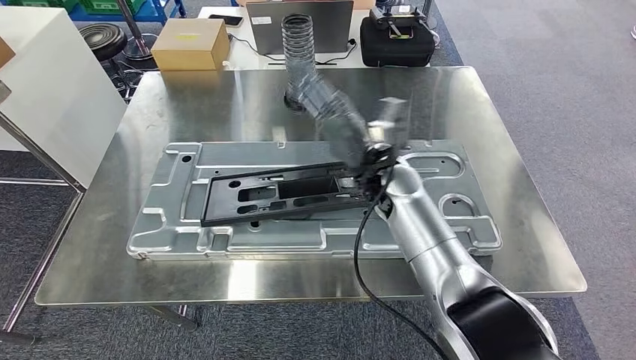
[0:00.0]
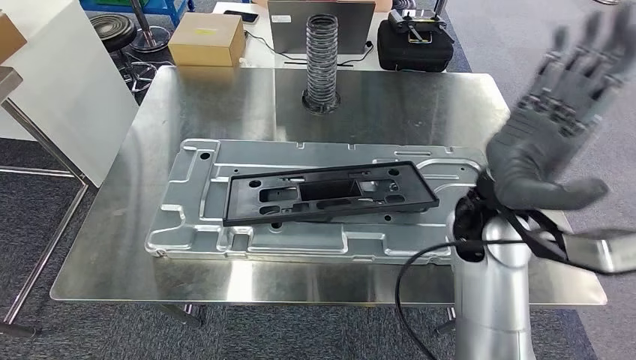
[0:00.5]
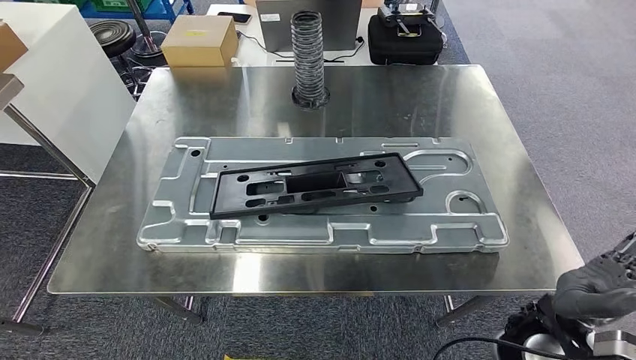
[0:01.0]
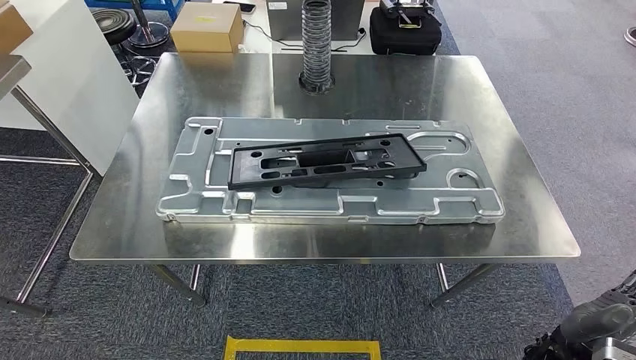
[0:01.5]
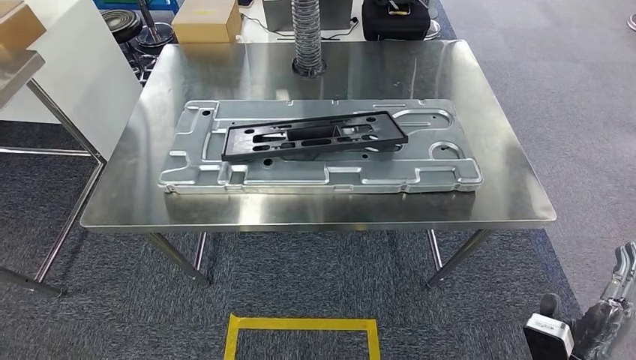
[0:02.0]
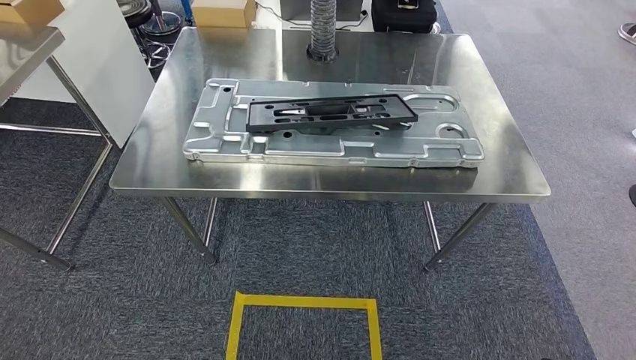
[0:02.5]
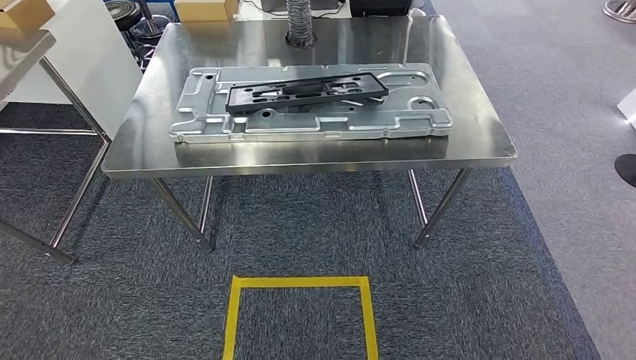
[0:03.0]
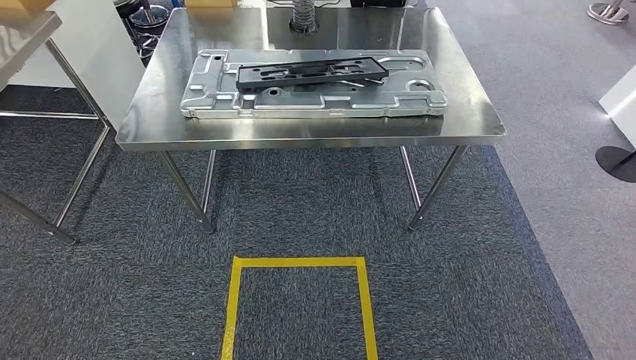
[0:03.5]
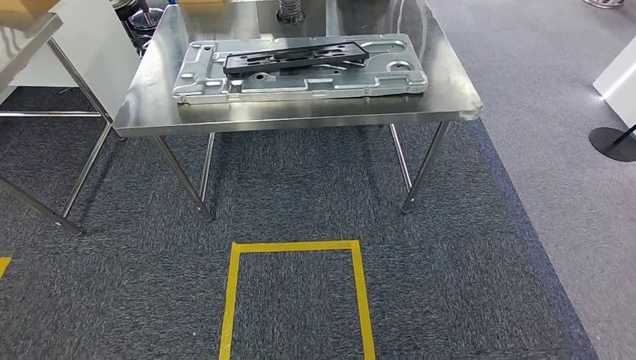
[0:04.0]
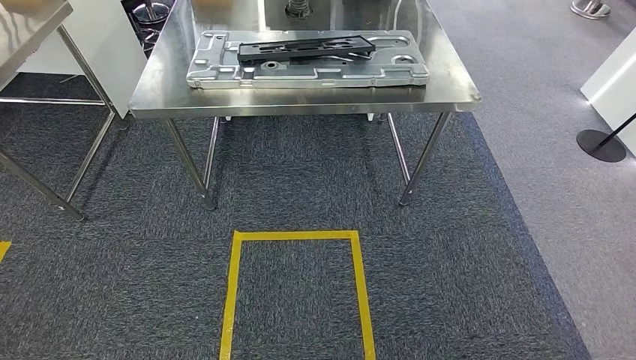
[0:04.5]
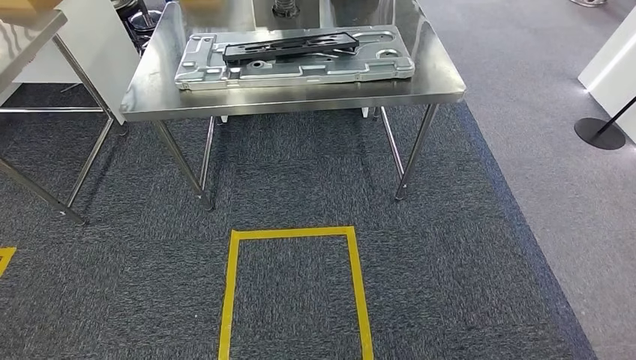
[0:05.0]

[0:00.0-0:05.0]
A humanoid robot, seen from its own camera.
Step, 0:02.0 to 0:05.0: Return to the initial position at the workbench.

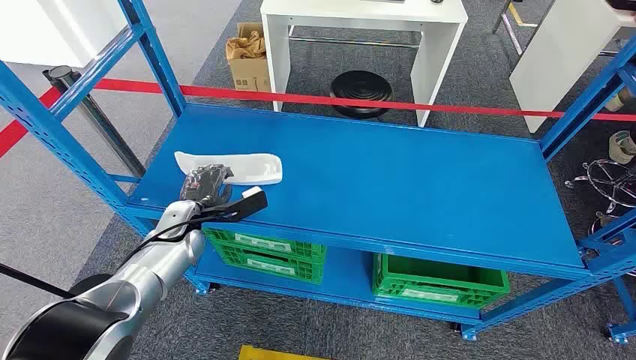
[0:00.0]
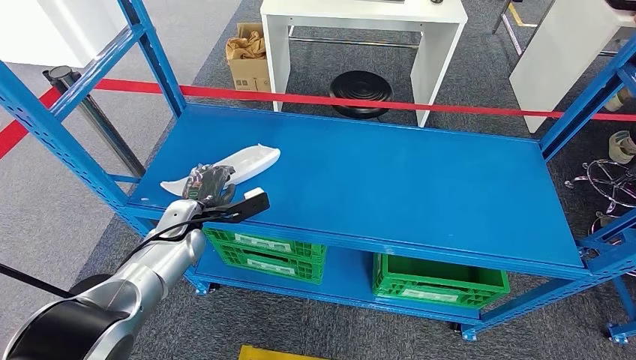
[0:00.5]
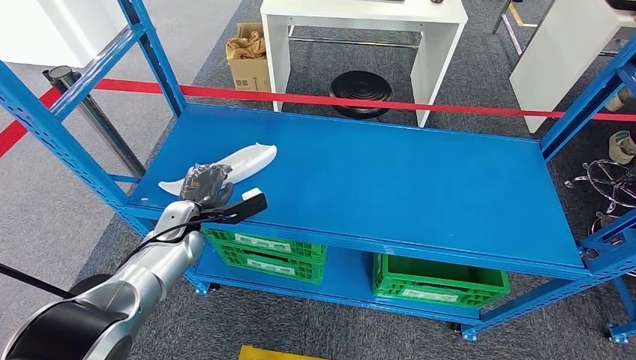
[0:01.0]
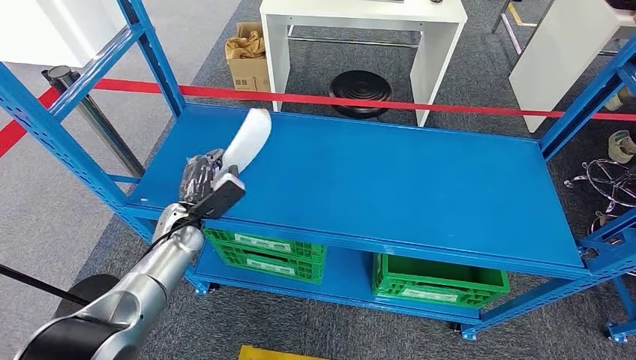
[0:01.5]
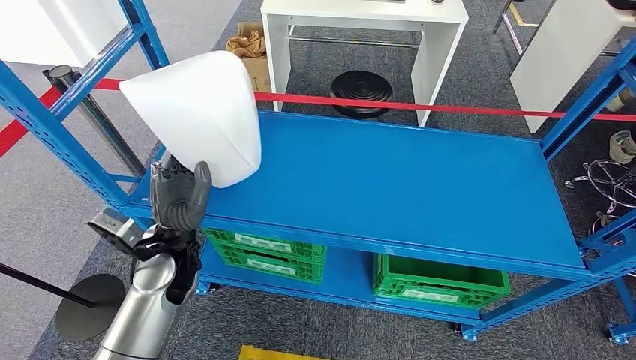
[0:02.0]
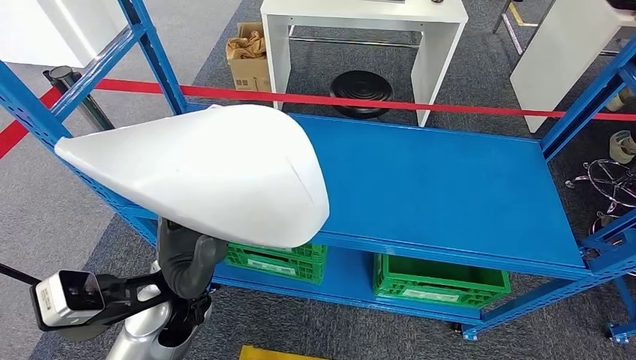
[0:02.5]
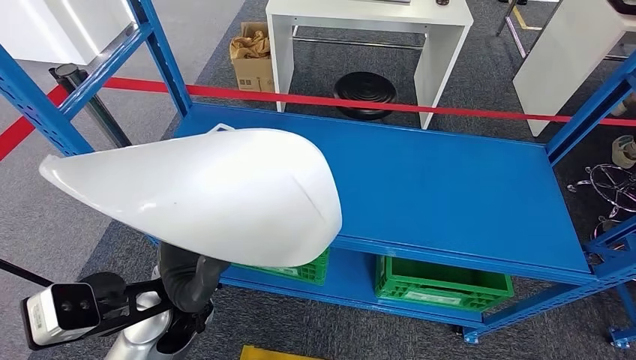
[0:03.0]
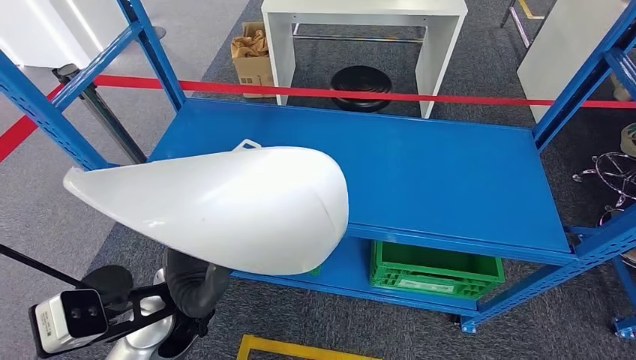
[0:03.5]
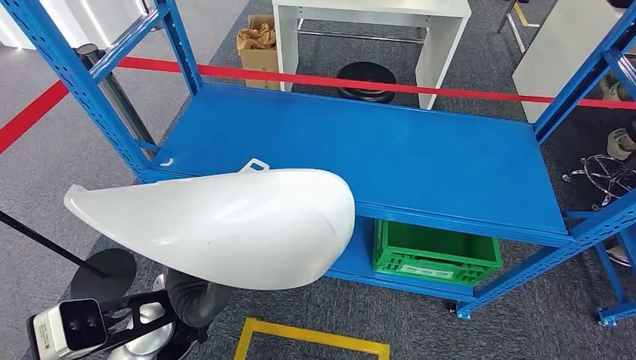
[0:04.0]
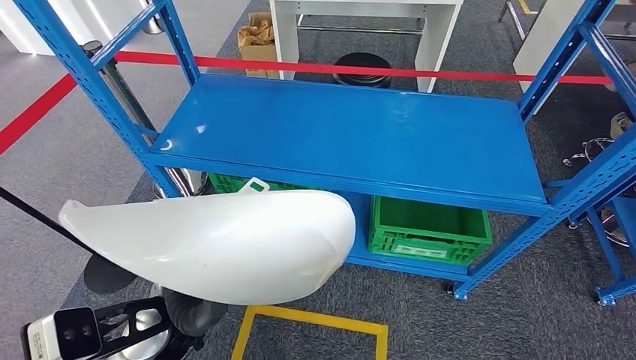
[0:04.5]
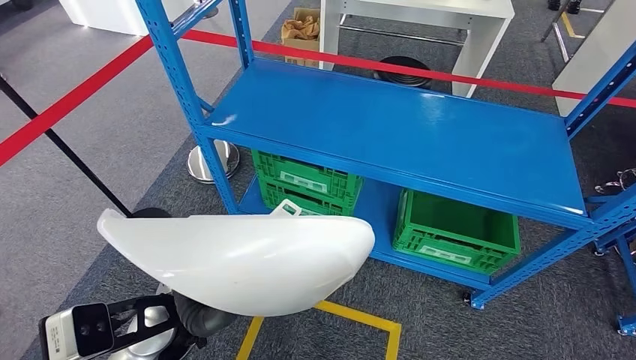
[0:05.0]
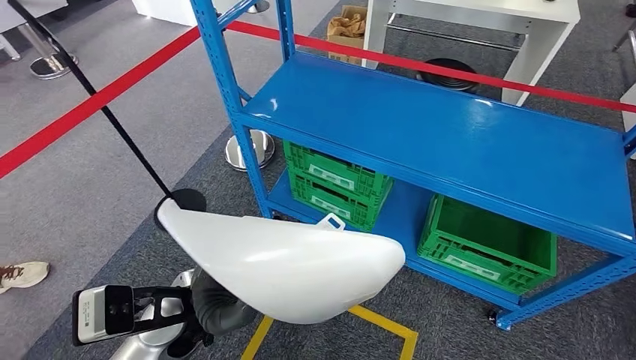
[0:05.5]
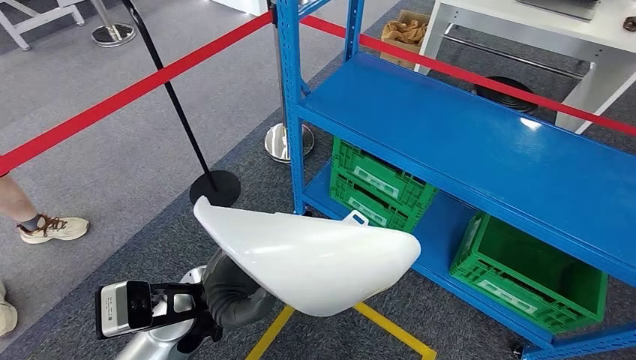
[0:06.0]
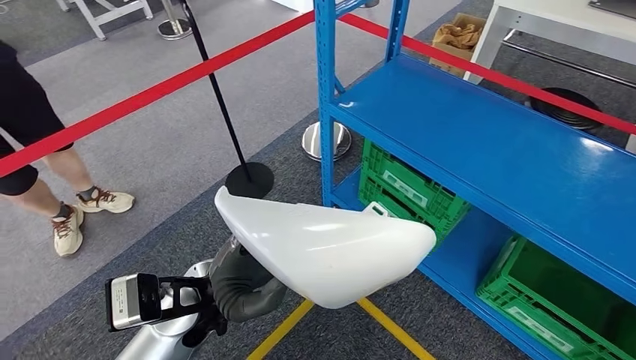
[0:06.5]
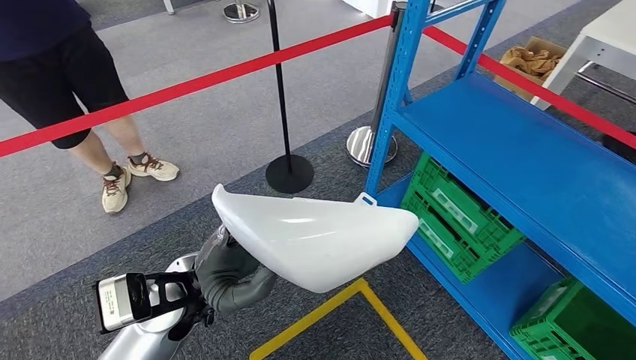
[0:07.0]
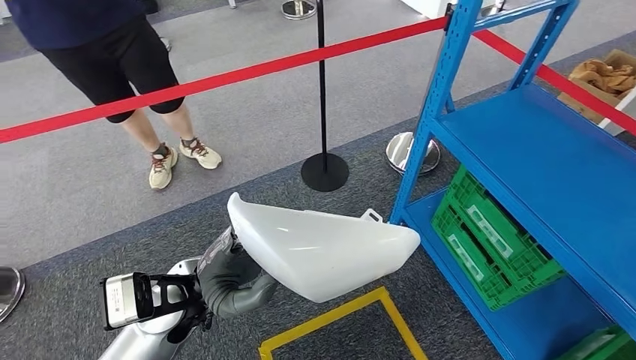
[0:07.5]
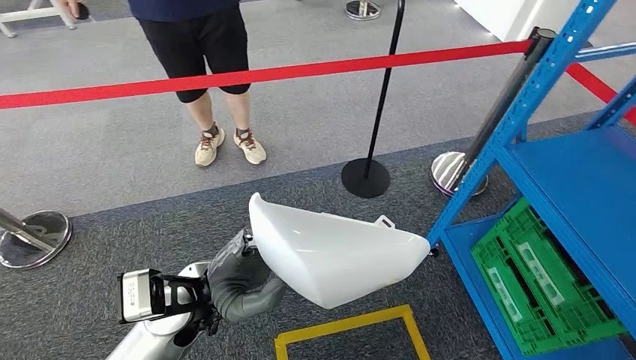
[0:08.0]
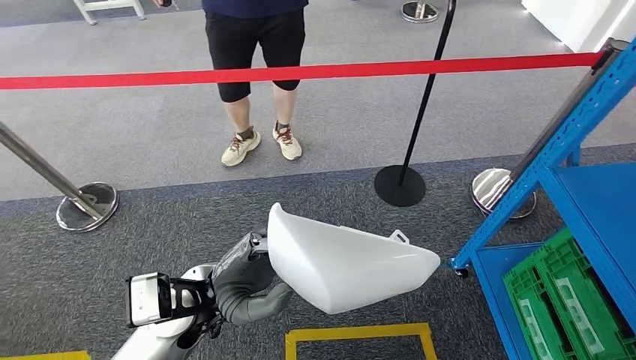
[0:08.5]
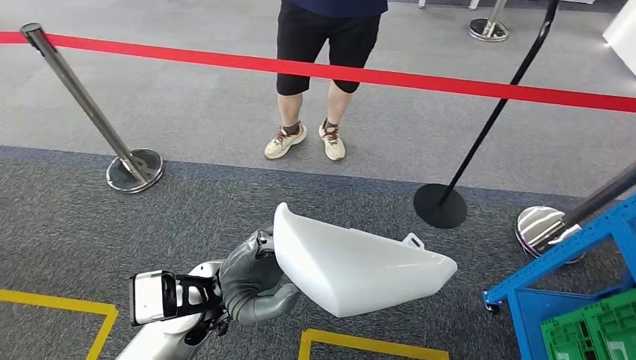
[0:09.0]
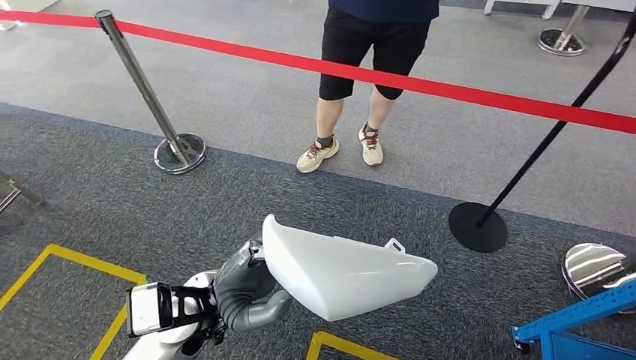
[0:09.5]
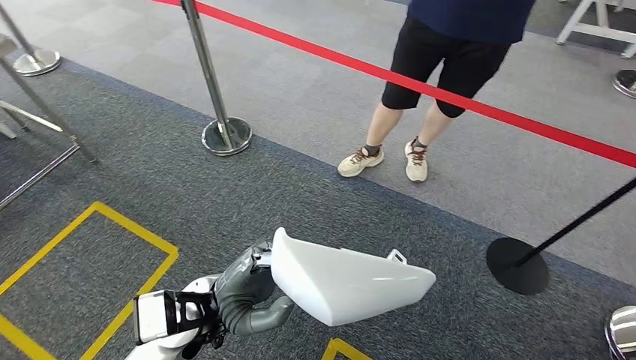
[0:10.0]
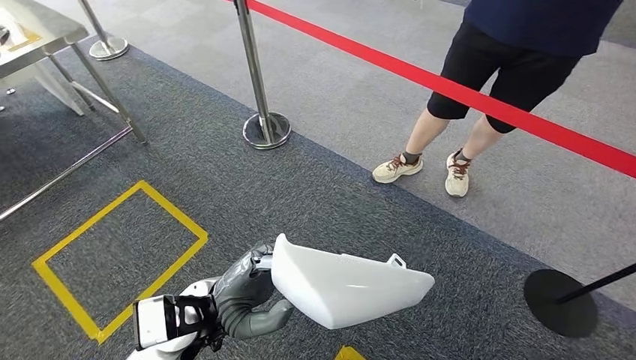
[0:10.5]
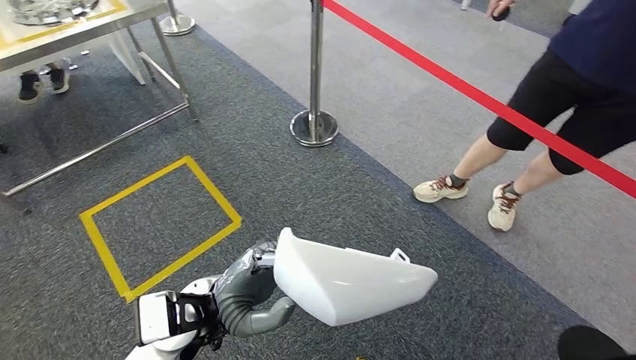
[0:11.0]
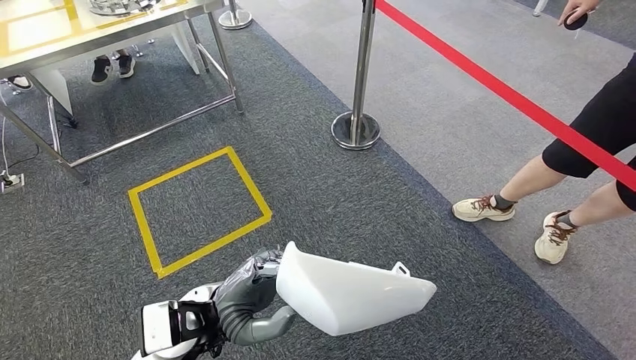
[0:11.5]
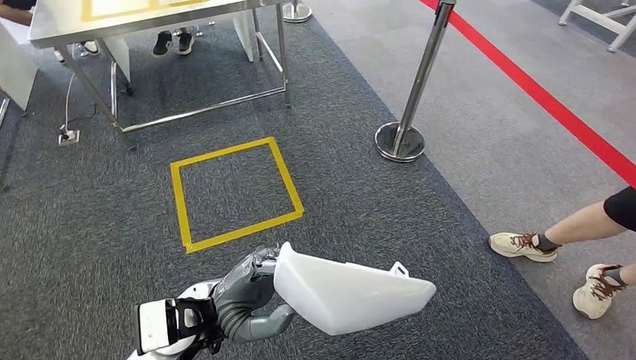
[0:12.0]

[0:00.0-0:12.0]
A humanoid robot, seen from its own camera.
Step, 0:00.0 to 0:03.0: Pick up the small component from the shelf.

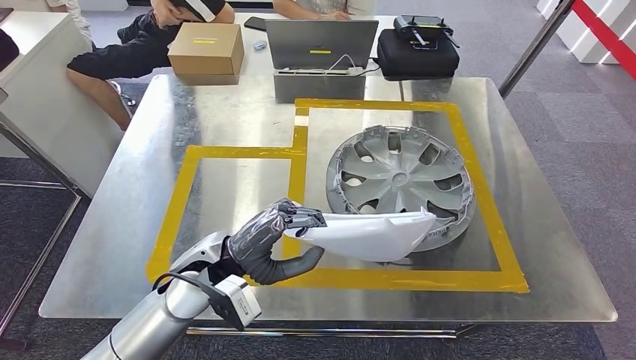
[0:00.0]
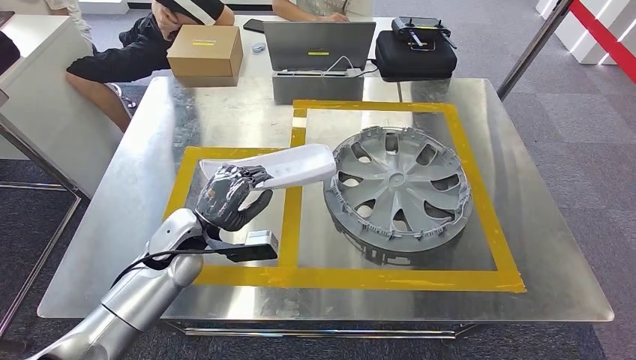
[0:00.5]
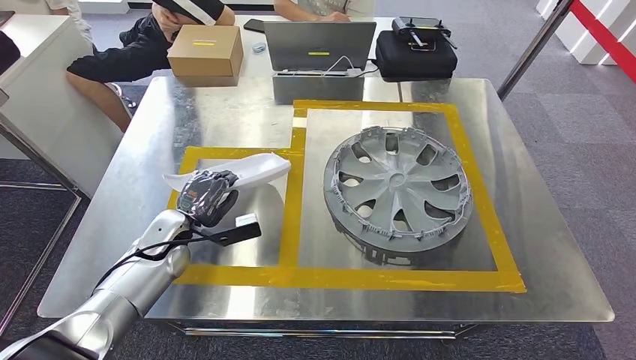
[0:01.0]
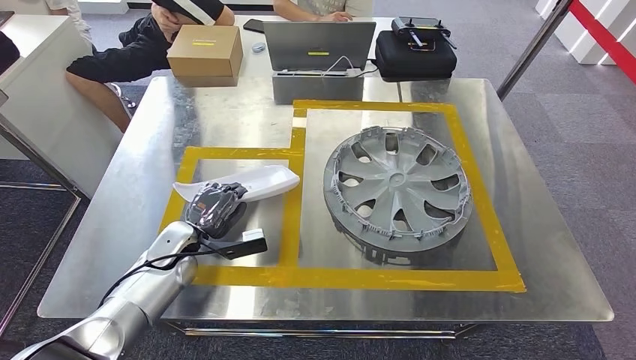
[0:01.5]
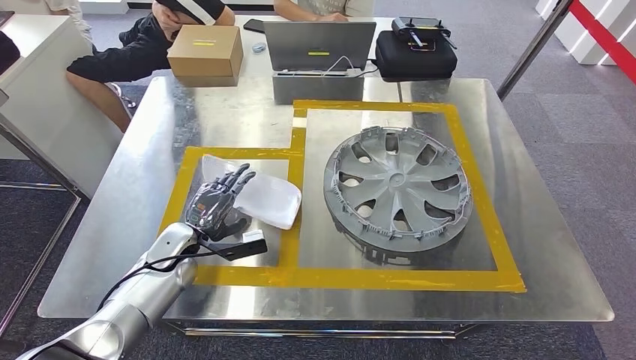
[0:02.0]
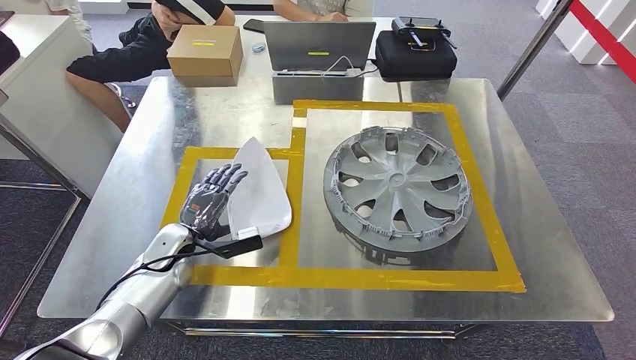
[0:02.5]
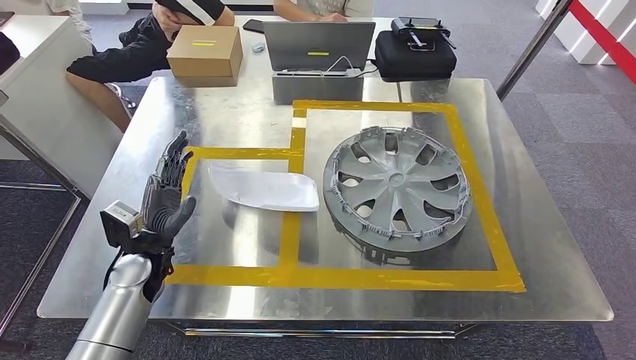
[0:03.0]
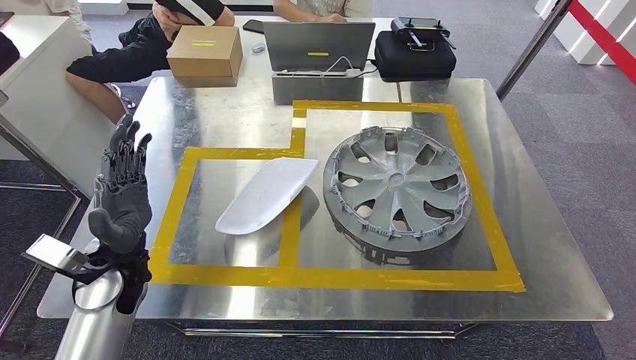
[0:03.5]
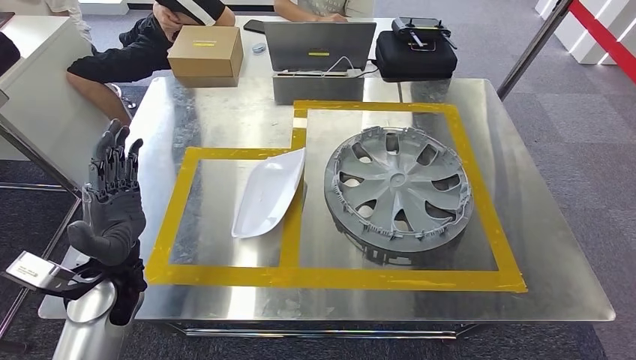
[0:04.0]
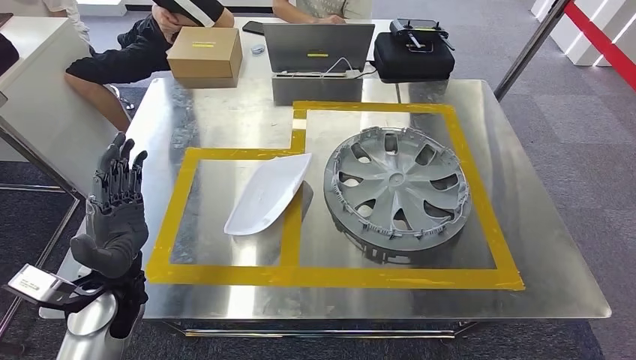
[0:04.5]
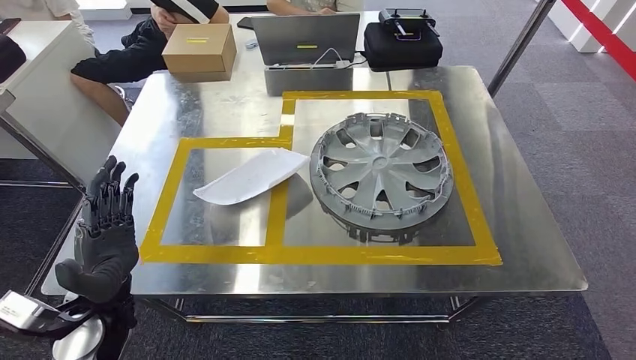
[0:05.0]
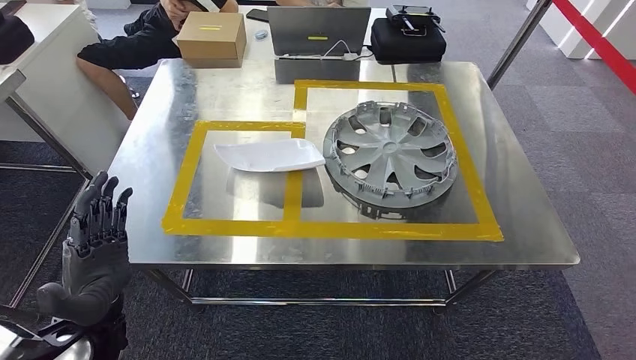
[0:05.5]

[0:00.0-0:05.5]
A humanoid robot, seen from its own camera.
Step, 0:00.5 to 0:05.0: Insert the small component into the corresponding slot on the workbench.
0:00.0 to 0:02.0: The left hand shifts roughly 20 cm to the left, downward and forward.
0:02.0 to 0:03.5: The left hand heads upward and backward, covering roughly 10 cm.
